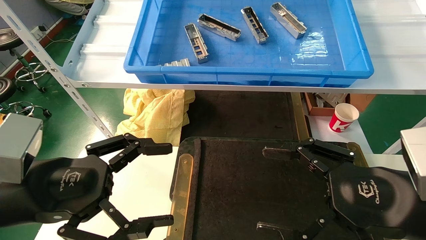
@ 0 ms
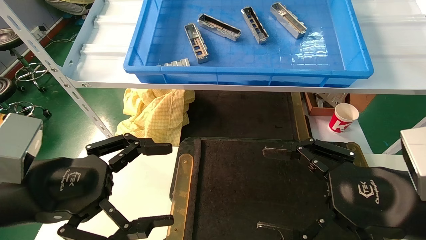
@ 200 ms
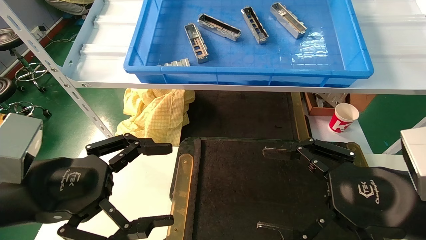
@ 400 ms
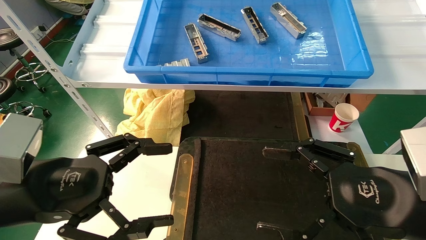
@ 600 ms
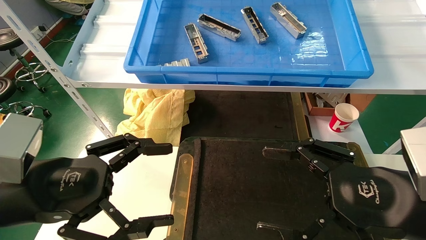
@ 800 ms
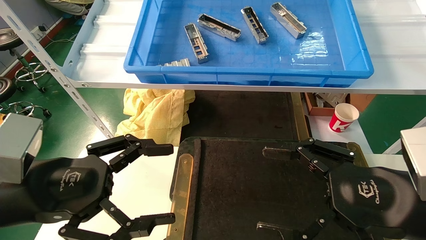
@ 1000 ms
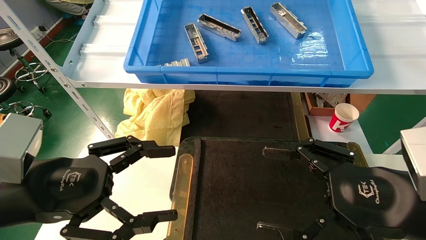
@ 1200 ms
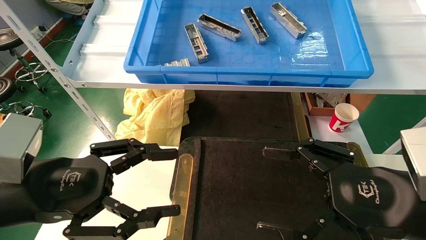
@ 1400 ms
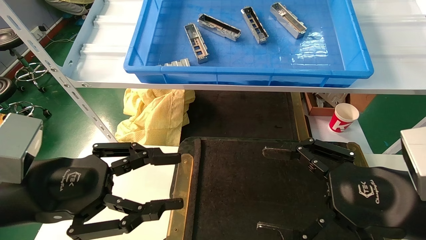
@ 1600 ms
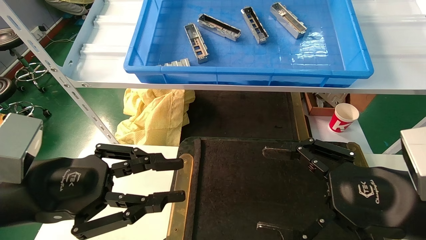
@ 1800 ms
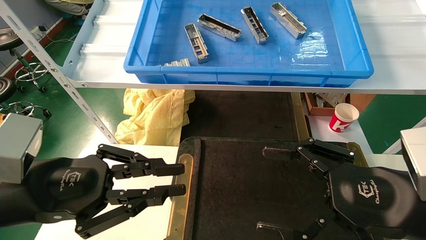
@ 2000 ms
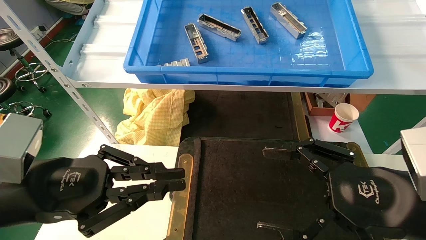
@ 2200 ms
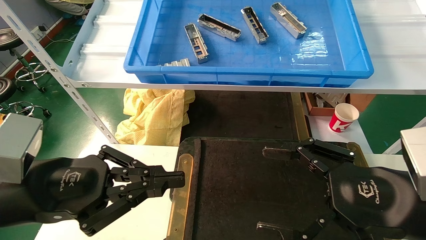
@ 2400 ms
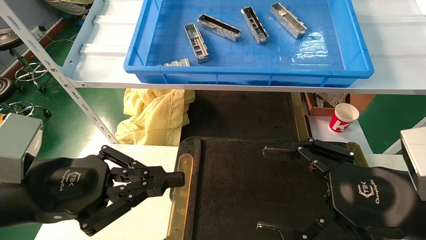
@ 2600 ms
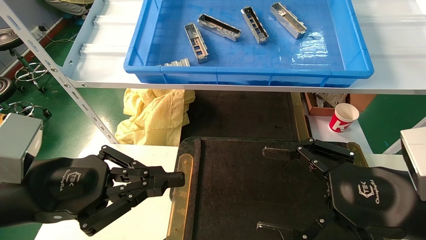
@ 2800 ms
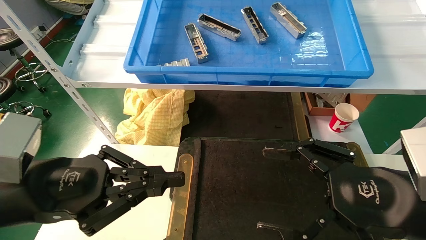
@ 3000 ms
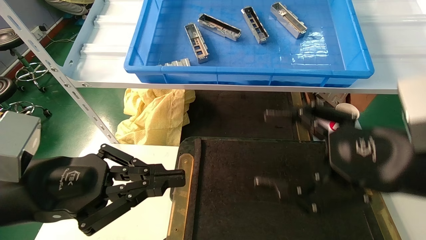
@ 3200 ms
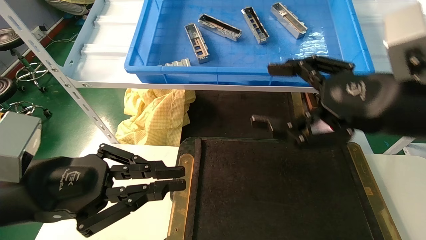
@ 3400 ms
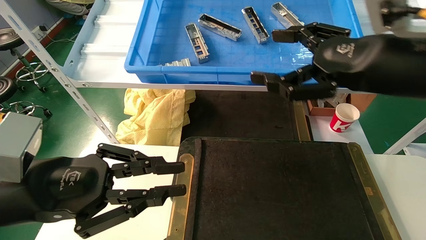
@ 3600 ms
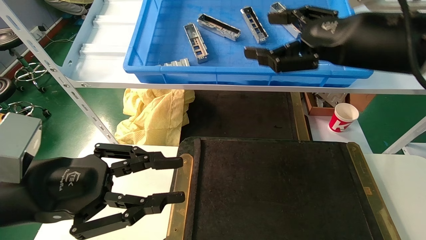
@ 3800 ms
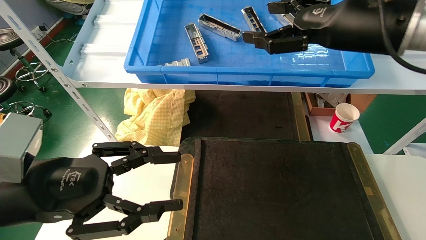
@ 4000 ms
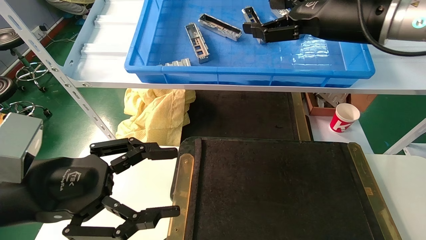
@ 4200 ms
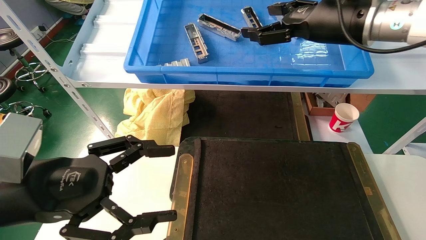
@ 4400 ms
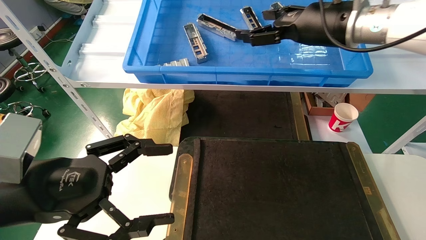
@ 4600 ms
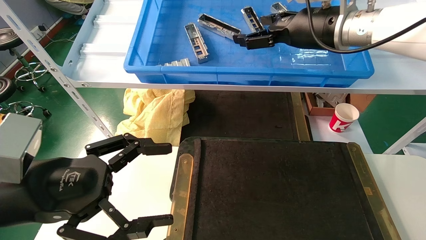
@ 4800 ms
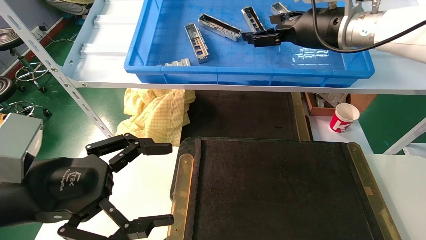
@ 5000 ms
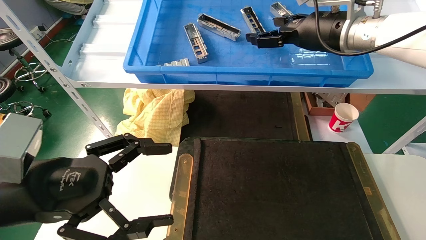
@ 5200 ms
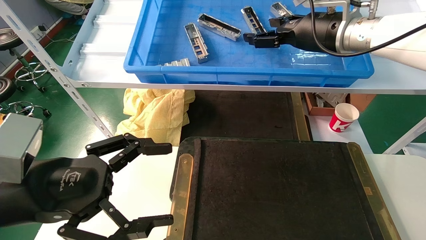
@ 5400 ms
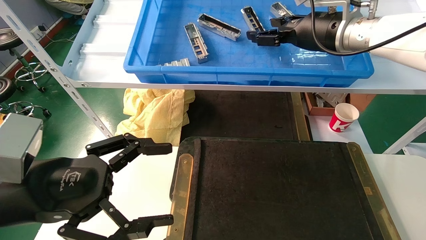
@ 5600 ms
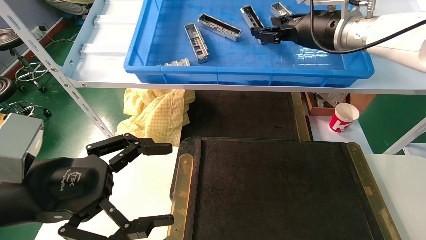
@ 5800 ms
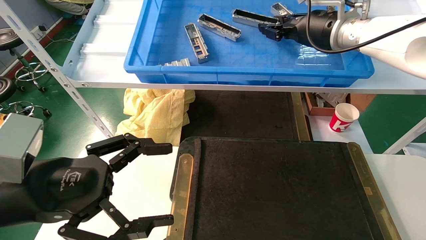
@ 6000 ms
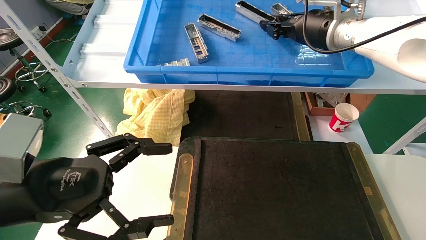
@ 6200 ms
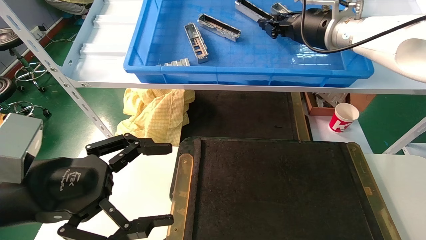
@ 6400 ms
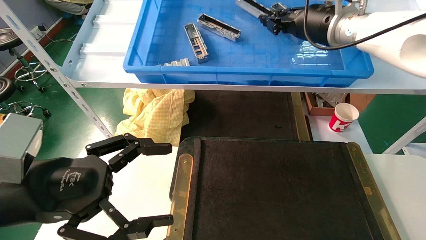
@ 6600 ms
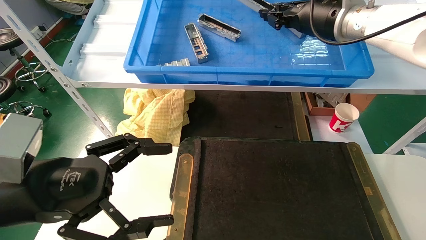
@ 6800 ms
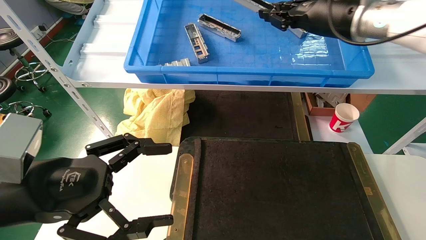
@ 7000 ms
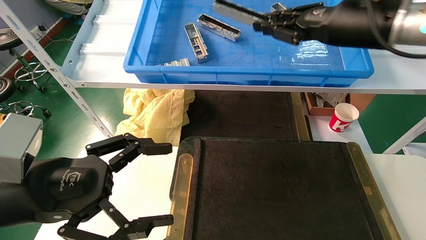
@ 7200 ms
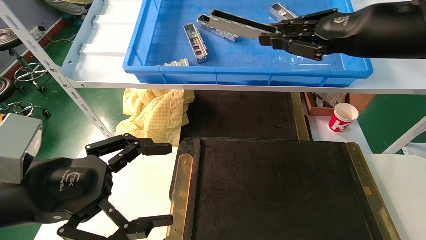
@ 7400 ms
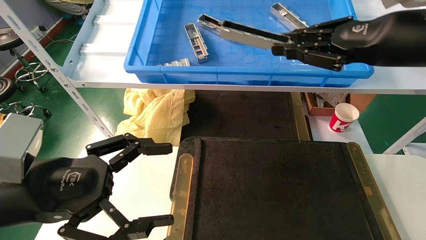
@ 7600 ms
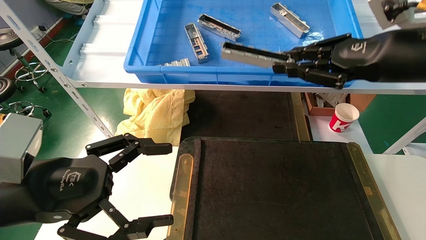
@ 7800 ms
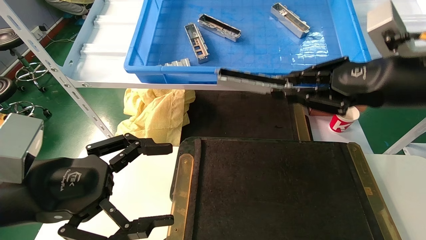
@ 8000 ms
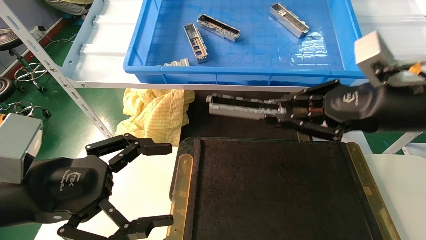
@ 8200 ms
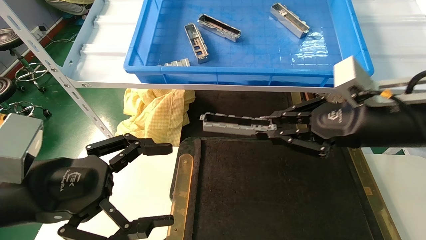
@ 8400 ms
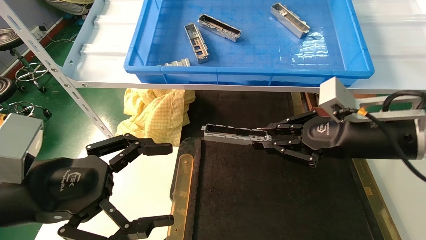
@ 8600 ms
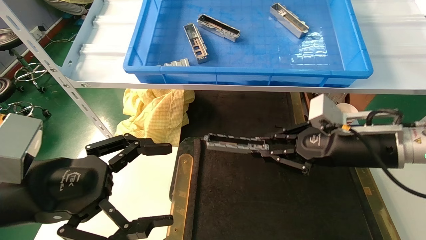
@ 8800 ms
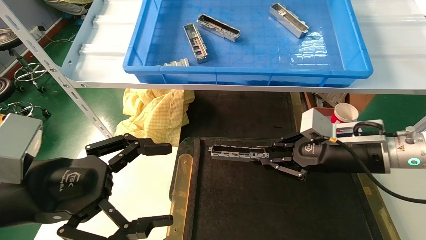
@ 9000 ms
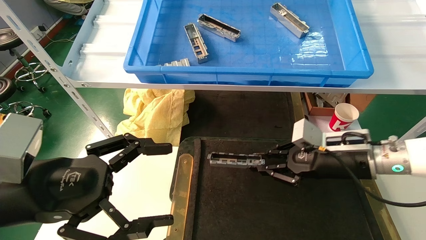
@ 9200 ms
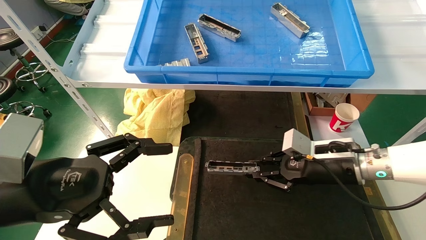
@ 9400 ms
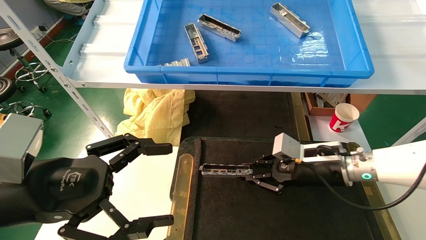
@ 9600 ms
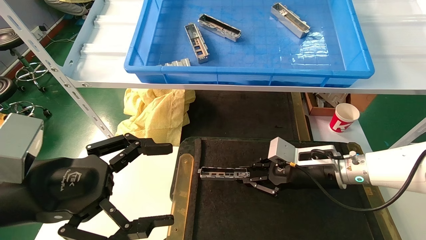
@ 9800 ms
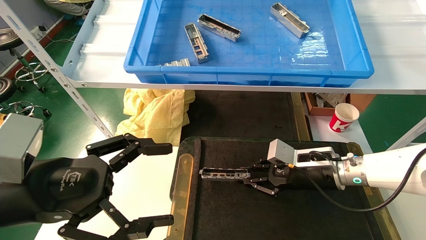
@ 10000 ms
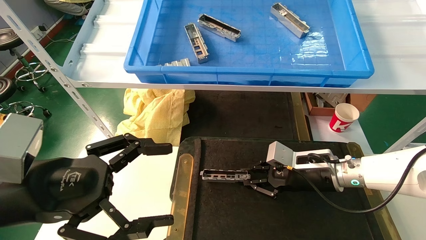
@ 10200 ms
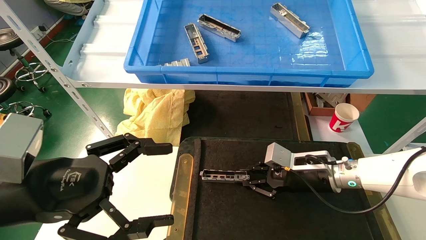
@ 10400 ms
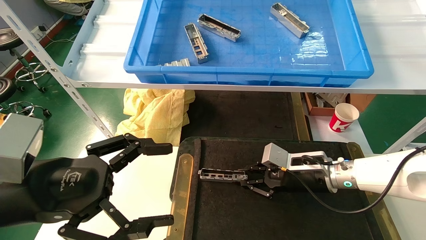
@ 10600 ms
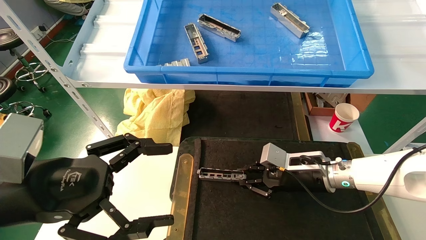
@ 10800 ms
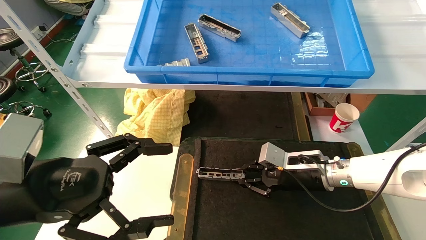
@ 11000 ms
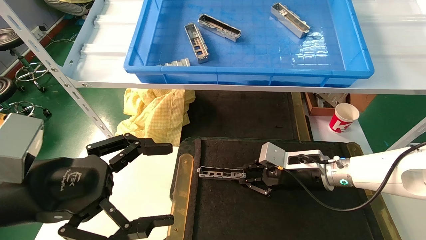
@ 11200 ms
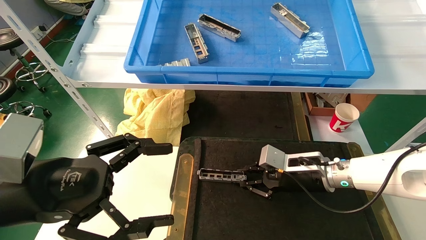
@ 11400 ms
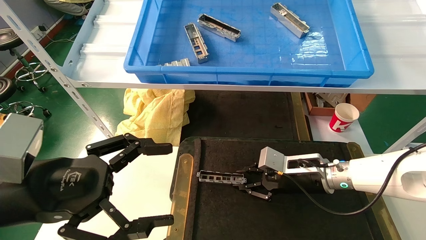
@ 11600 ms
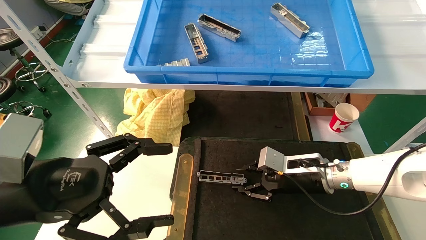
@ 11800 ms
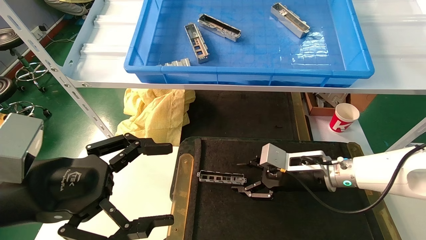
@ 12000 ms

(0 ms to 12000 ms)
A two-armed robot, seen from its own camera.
Task of the whole recording: grasp the part and place them on the black container.
Step, 1800 ms - 7400 ms: Pick up and lift the front USB bracket from the feeding area.
0 ms - 1600 ms: The left gripper closes its fingers.
1600 ms - 3000 ms: The left gripper closes its fingers.
3000 ms - 4400 ms: The left gripper opens its fingers. The right gripper moves forward and upward, roughly 25 cm.
4400 ms - 6000 ms: The right gripper shifts some 5 cm forward, and closes up.
6000 ms - 7600 ms: The right gripper shifts roughly 15 cm backward and to the right, and closes its fingers.
7600 ms - 9000 ms: The right gripper moves downward, some 20 cm.
9000 ms - 10400 ms: The right gripper moves downward and forward, approximately 10 cm.
10400 ms - 12000 ms: The two grippers keep their place.

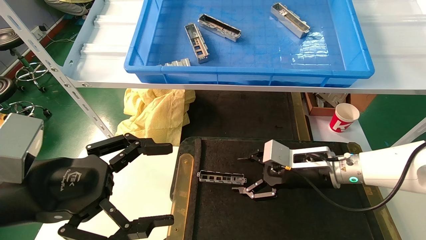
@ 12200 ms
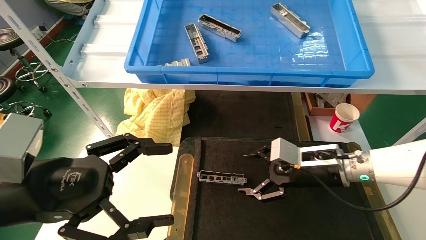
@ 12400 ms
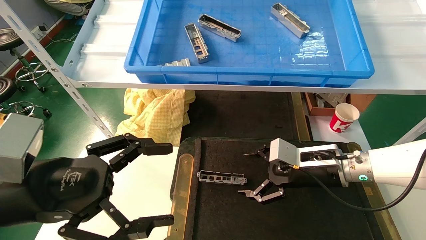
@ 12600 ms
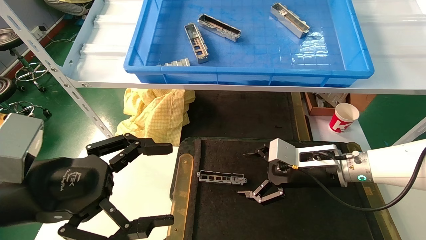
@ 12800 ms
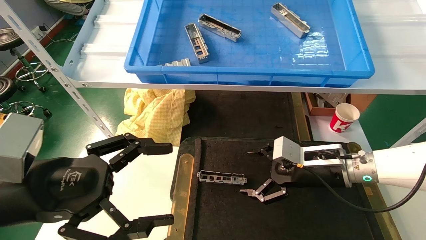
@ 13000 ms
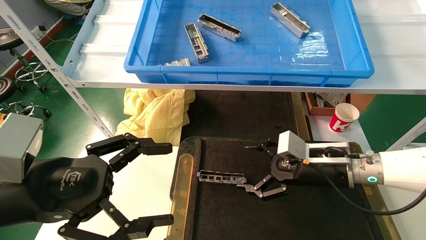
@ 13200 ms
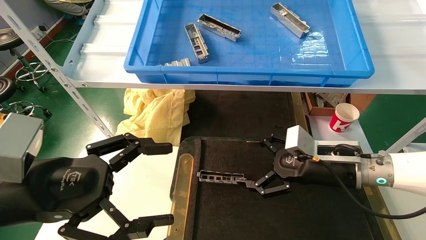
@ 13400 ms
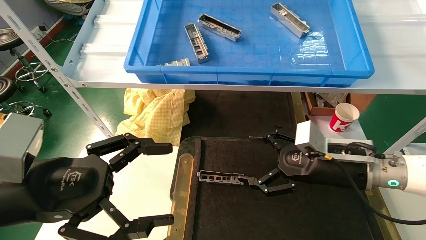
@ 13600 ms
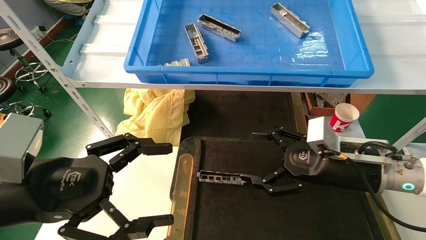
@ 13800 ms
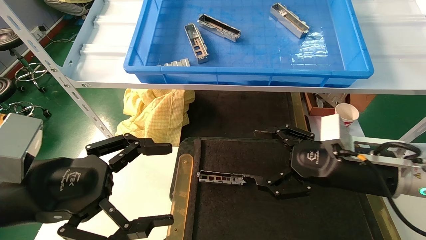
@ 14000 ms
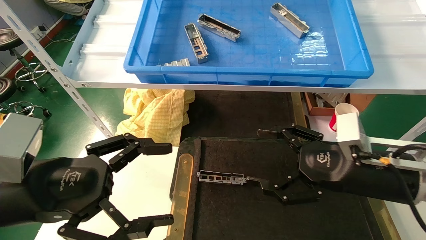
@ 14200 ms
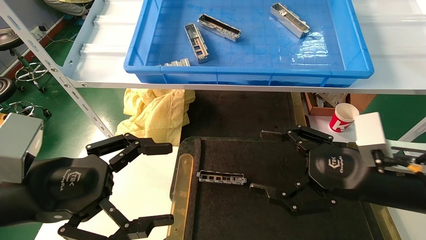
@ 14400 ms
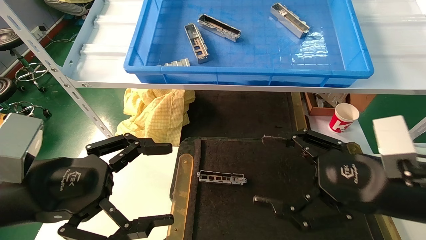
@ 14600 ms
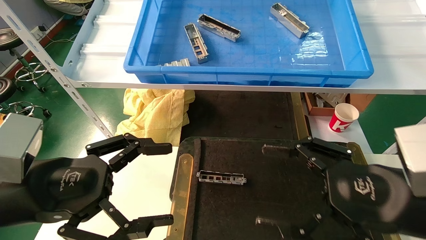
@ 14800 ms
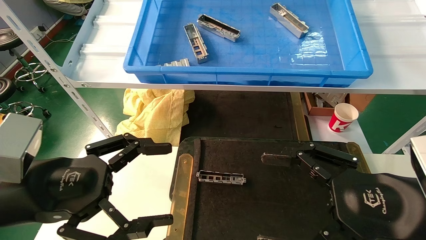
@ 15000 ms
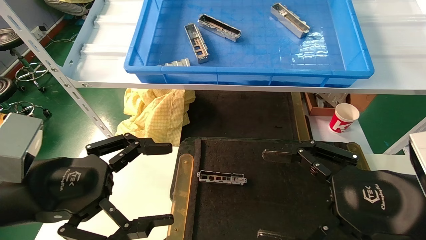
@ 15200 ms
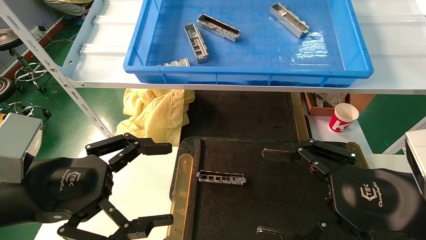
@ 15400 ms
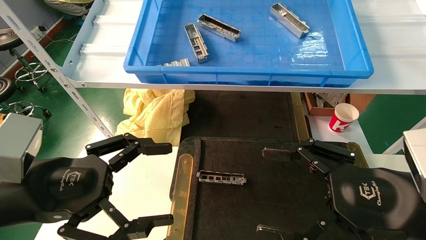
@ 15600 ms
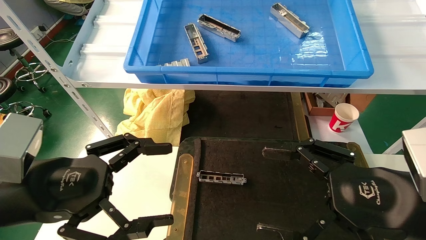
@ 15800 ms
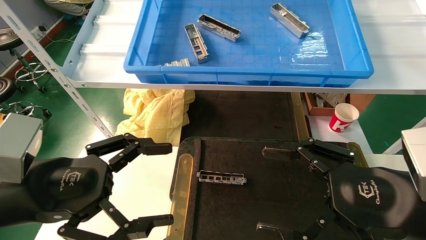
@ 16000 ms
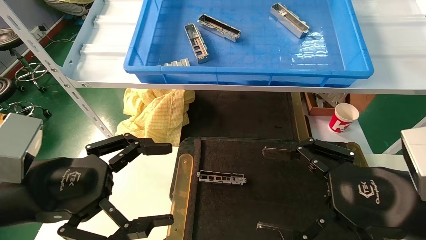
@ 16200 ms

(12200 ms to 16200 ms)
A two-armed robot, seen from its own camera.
Task of the whole recording: grasp the part and place them on the black container.
12200 ms - 13600 ms: The right gripper ends up roughly 5 cm from where it was, and opens up.
13600 ms - 14800 ms: The right gripper goes some 15 cm backward.
14800 ms - 16200 ms: The grippers move only a little.
